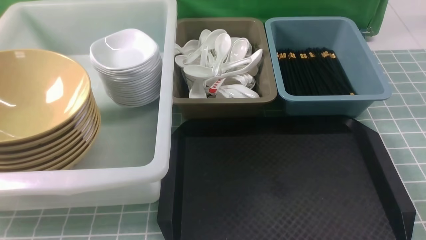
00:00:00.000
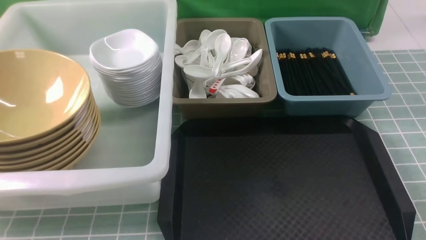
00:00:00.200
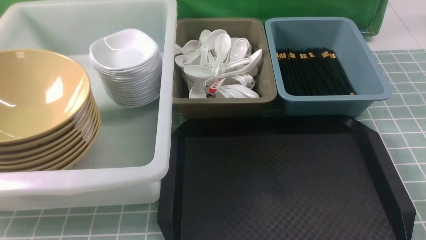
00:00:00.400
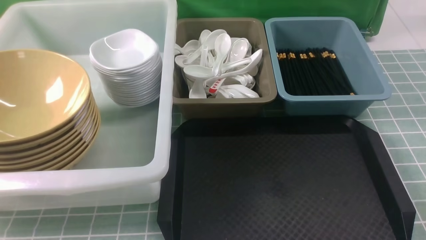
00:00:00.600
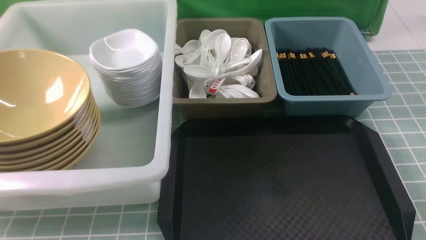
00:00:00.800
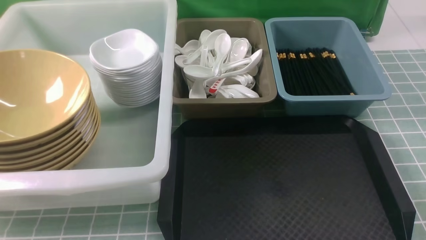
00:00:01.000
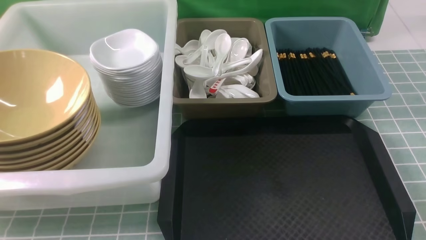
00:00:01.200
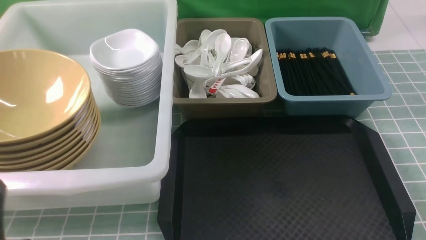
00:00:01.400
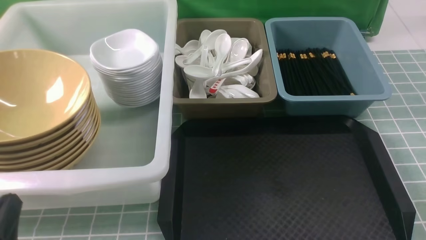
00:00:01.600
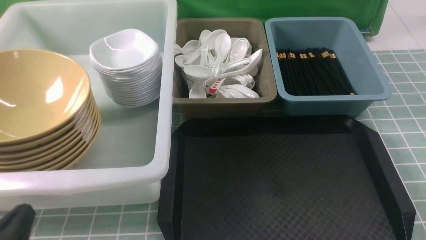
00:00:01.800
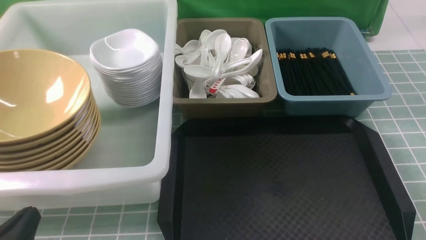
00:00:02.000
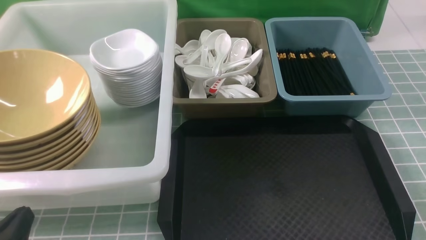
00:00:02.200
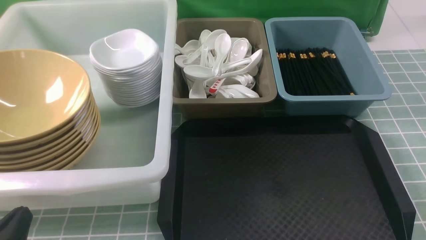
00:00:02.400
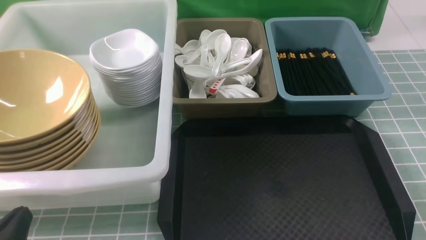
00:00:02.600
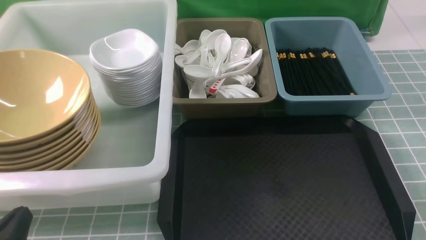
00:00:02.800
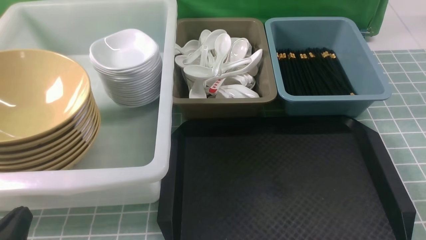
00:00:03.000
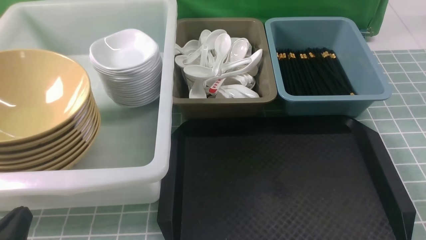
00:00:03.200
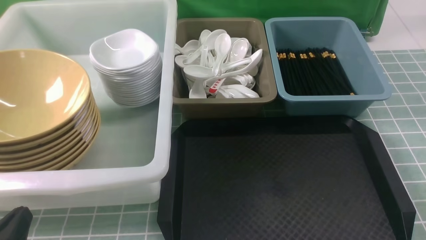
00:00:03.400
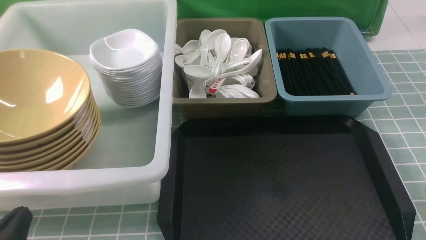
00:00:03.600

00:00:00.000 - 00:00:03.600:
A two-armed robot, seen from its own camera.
Task of the whole recording: on blue table put chopsticks spoon bowls plates into blue grey white boxes.
00:00:00.000 - 00:00:01.800: The left gripper is displaced downward by approximately 10 cm.
00:00:01.800 - 00:00:03.600: The two grippers keep their place.
